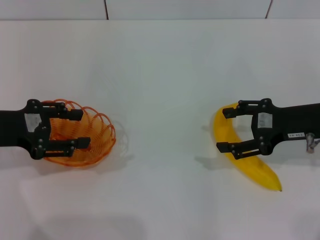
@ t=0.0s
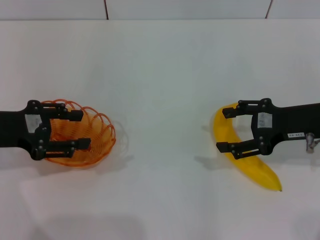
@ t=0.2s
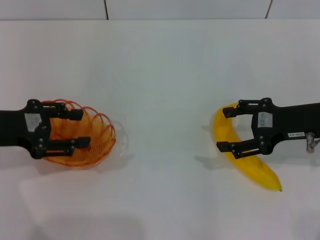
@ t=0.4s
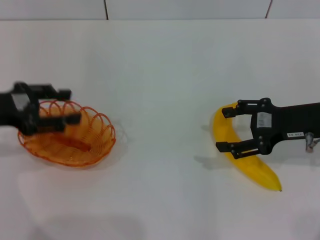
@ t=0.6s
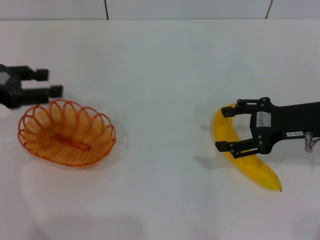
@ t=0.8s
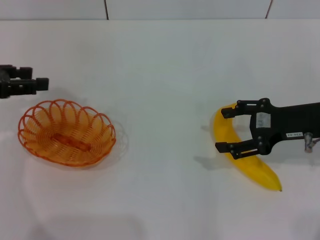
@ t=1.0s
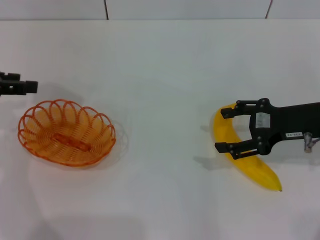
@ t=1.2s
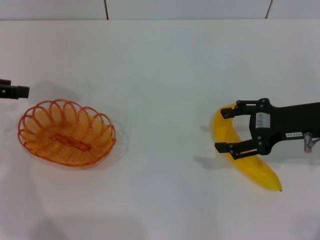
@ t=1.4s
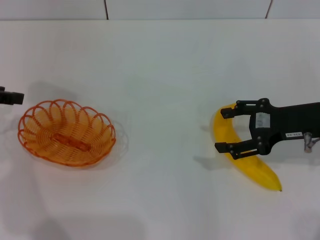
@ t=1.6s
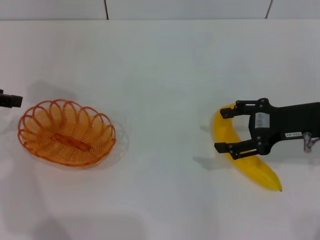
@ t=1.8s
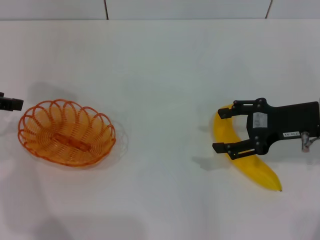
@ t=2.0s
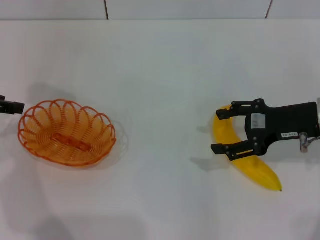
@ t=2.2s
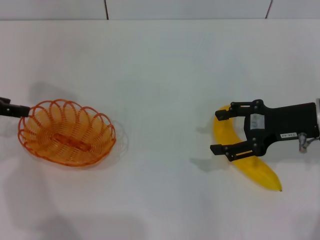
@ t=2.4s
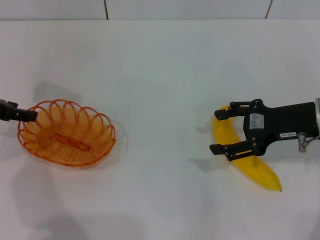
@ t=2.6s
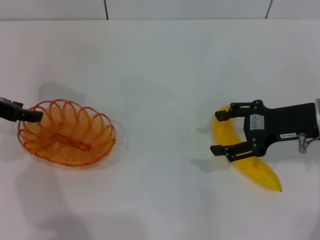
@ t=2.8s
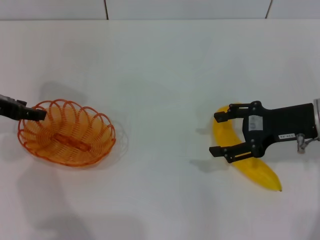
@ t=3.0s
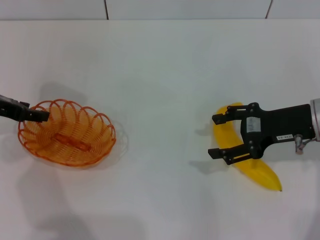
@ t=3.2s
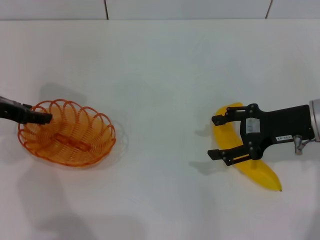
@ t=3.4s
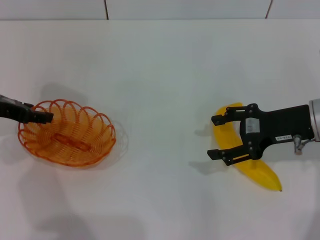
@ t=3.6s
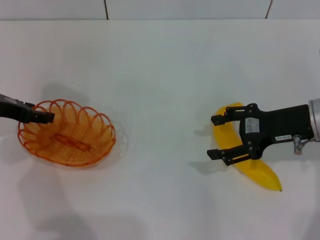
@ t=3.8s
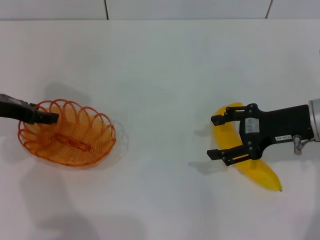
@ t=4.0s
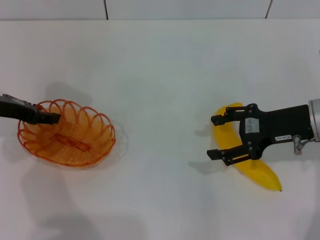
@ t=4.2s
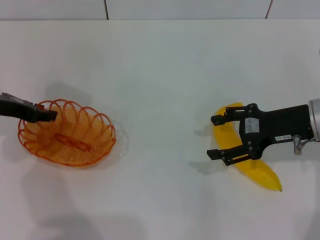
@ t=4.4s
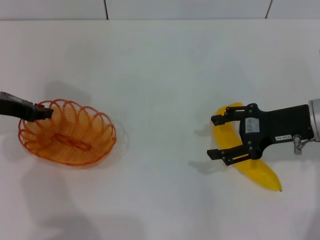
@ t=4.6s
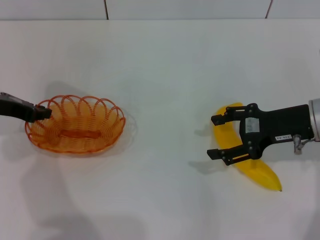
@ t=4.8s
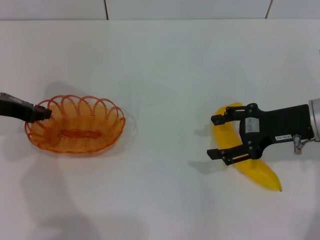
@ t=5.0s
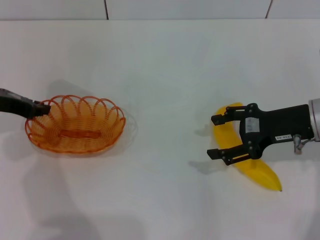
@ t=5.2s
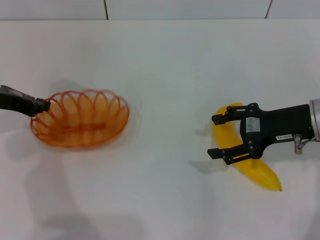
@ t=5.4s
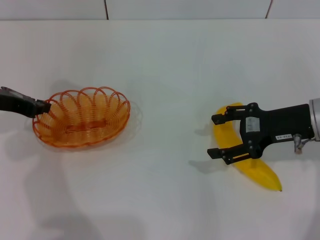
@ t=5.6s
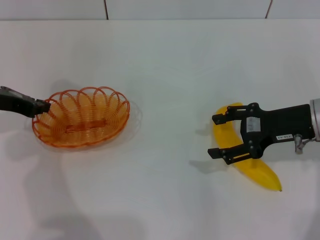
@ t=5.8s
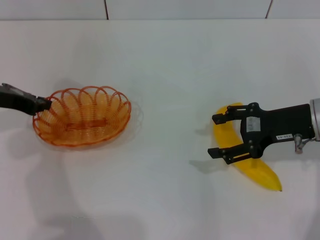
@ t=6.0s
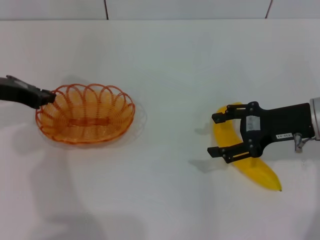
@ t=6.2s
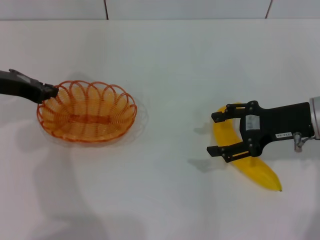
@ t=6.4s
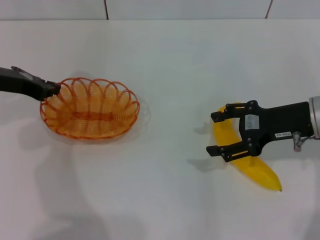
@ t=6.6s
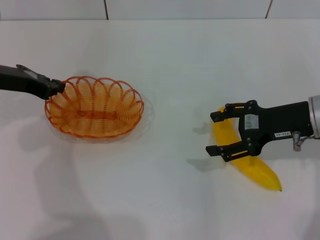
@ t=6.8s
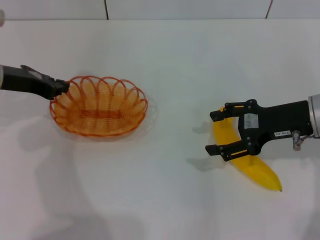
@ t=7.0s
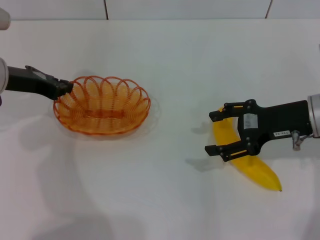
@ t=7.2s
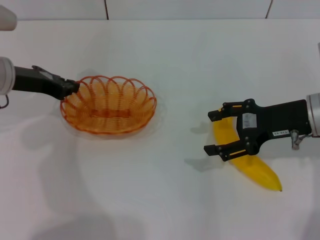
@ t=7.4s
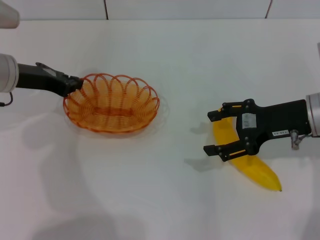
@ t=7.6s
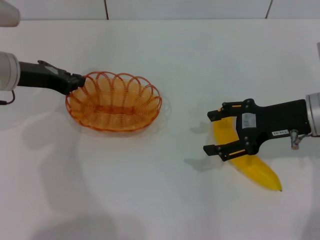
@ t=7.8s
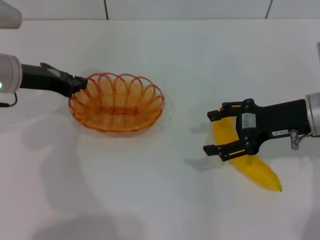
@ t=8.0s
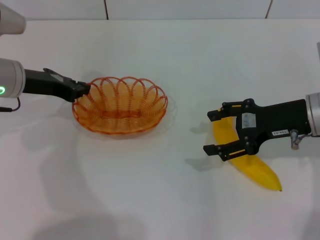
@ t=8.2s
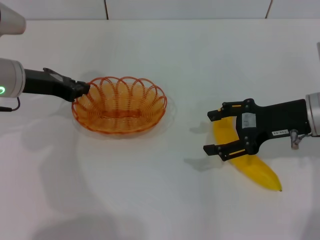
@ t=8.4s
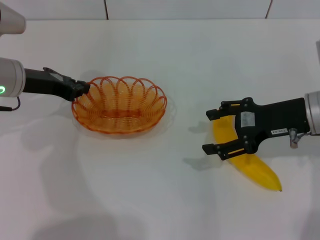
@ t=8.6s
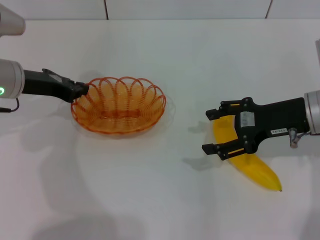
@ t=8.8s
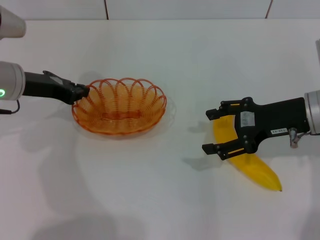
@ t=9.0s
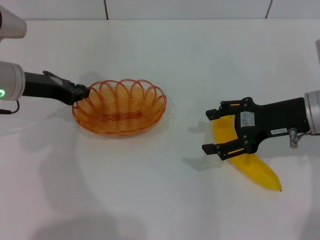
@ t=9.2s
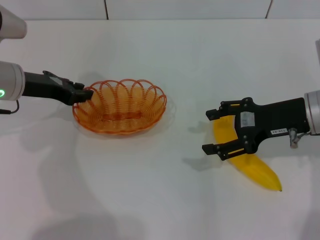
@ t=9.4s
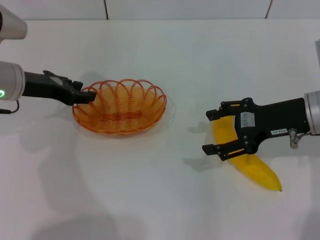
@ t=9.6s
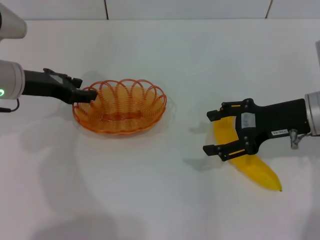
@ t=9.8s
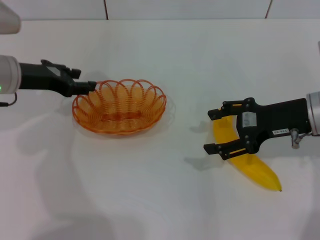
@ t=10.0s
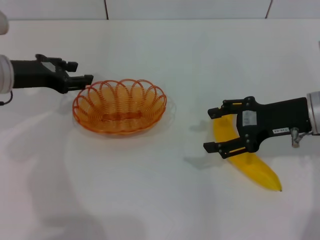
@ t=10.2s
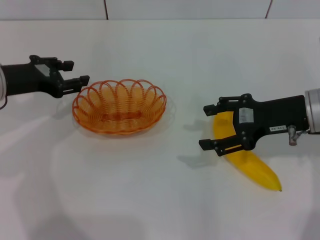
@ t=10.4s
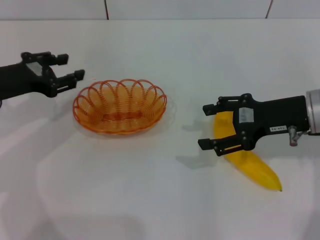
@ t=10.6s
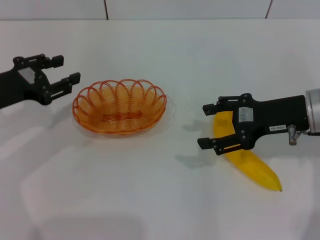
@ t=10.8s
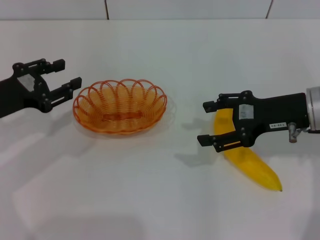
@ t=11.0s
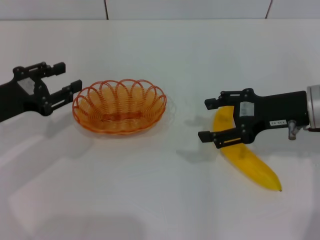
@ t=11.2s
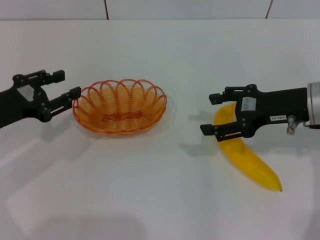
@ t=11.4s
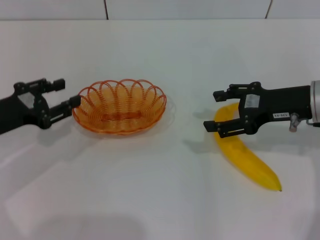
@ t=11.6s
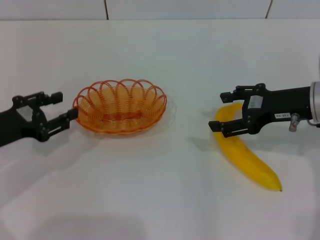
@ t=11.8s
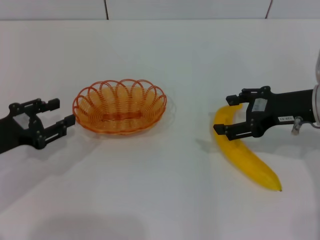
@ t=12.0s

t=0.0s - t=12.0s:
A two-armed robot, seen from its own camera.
Step, t=0.0s - t=6.0s: Pick up the basket with the left gripper.
Step, t=6.2s - t=11.4s: Place the basket in the center of view with the left gripper.
t=0.0s - t=1.6s: The left gripper is displaced upward and to the left by about 10 cm.
t=1.6s - t=3.0s: The left gripper changes place by approximately 5 cm.
t=3.0s - t=4.4s: The grippers stay close to where they were, moving slightly.
t=4.4s - t=6.0s: The left gripper closes up.
t=6.0s - t=7.6s: The grippers move only a little.
t=7.6s - t=9.0s: Both grippers stay put.
t=9.0s - t=10.4s: The left gripper opens its fingers.
t=10.4s - t=12.0s: The left gripper heads backward and downward, covering about 10 cm.

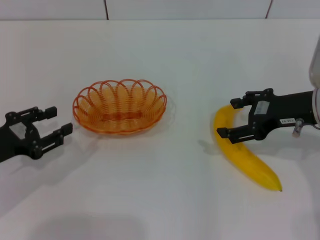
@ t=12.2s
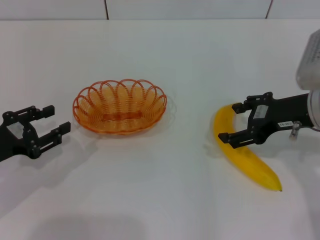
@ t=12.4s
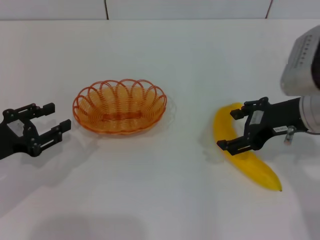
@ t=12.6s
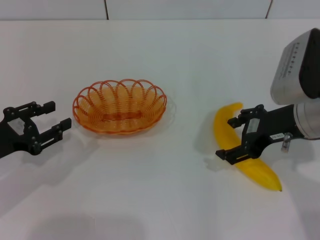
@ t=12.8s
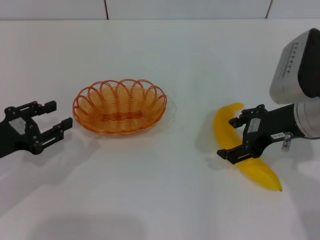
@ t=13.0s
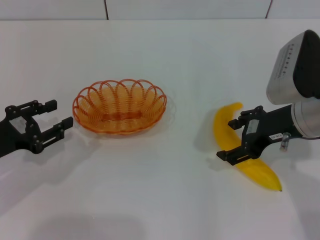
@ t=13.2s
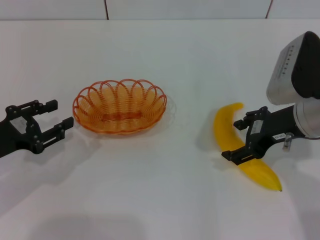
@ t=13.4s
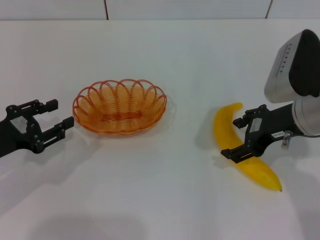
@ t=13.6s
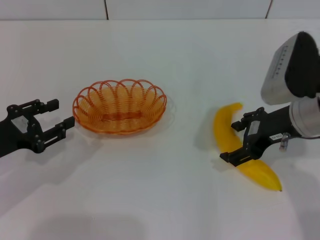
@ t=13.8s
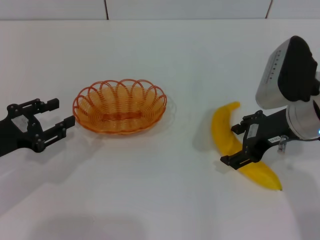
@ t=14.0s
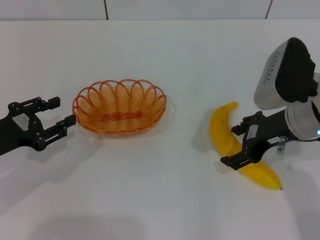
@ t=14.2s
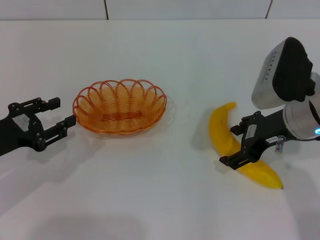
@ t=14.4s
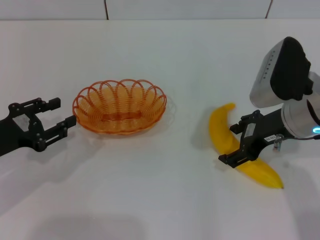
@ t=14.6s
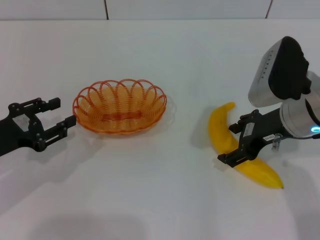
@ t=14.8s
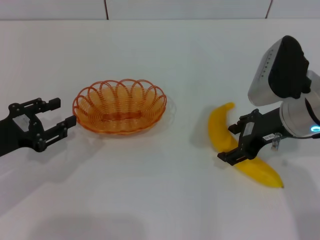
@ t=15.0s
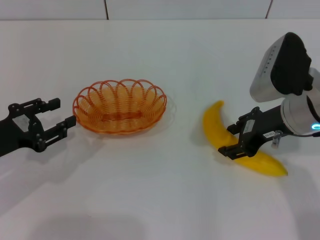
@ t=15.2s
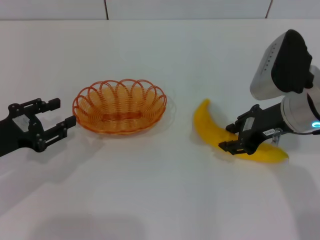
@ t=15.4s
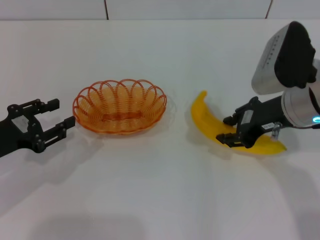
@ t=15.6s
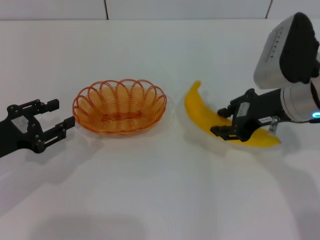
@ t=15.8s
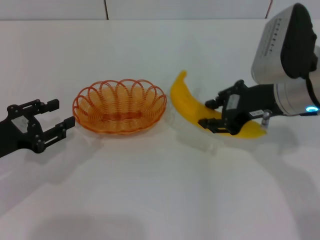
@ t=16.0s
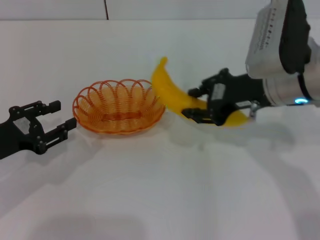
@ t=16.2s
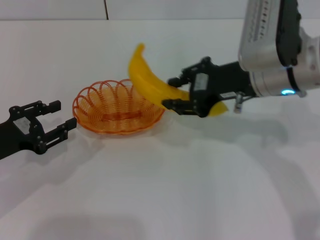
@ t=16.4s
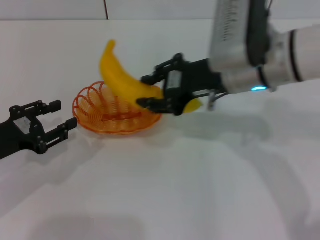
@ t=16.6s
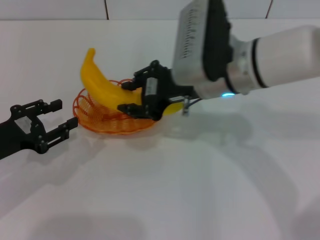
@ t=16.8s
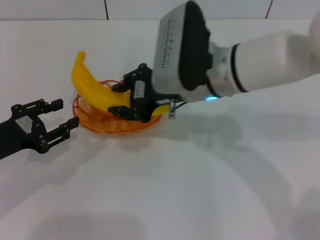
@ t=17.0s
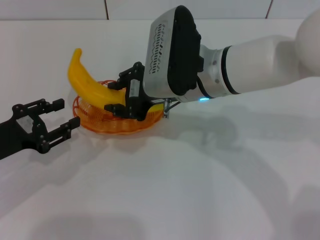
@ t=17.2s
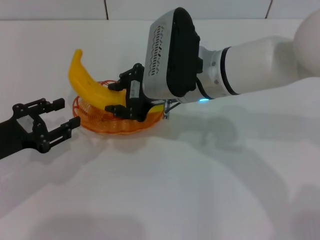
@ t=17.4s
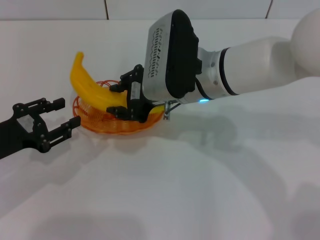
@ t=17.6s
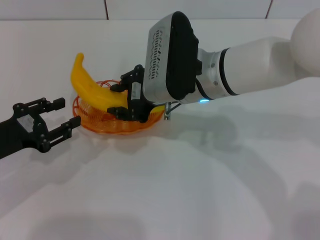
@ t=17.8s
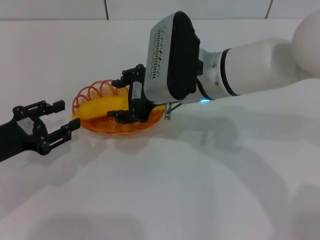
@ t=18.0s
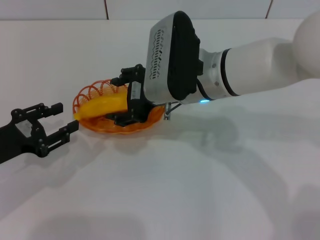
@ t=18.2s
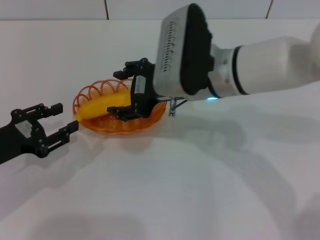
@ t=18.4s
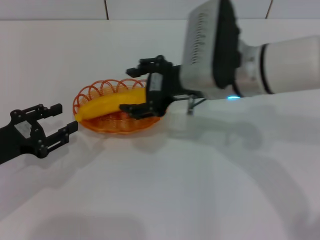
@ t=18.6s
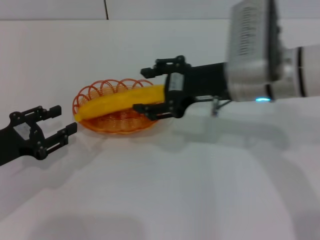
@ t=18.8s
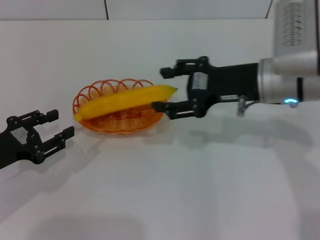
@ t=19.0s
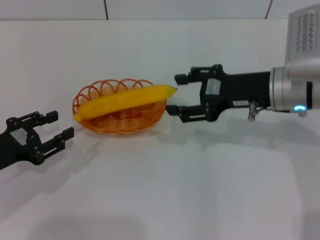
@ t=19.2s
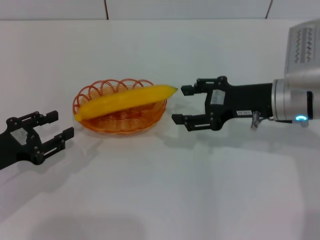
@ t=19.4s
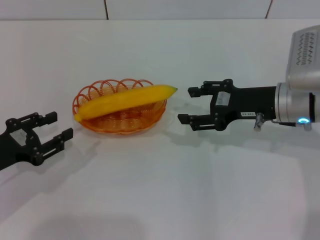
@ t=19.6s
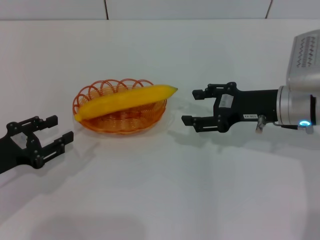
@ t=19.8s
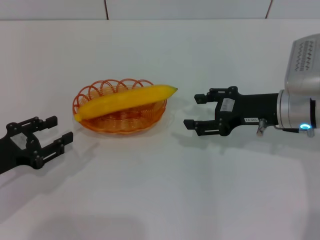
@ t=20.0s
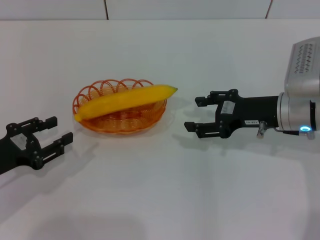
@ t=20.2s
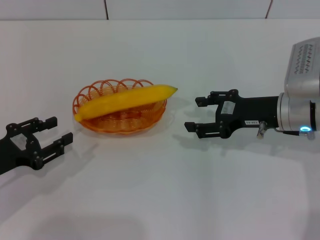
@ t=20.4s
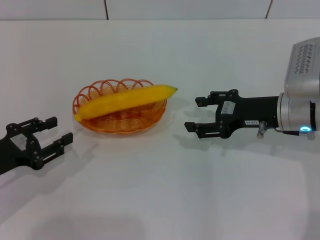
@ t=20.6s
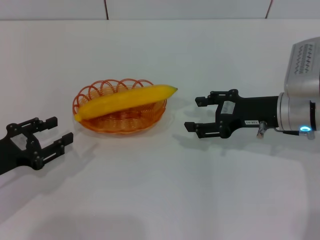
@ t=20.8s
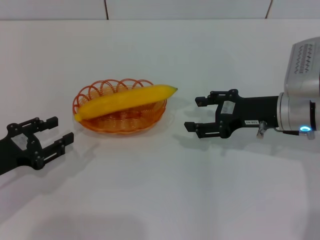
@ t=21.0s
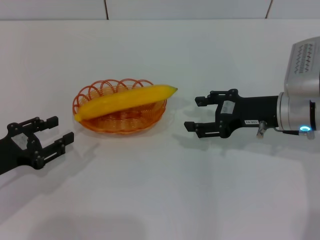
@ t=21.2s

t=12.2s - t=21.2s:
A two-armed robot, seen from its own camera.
Step, t=12.2s - t=16.0s: Pick up the banana with the right gripper.
Step, t=16.2s - t=18.4s: Place the banana into the basket with the right gripper.
t=12.2s - t=15.2s: There are only small adjustments of the grippers.
t=15.2s - t=16.6s: The right gripper goes roughly 10 cm to the left, and closes.
t=16.6s - t=18.2s: The right gripper is displaced to the left by roughly 5 cm, and opens.
t=18.2s - t=19.8s: The right gripper heads to the right, covering roughly 15 cm.
t=19.8s - t=21.2s: Neither gripper changes place.
